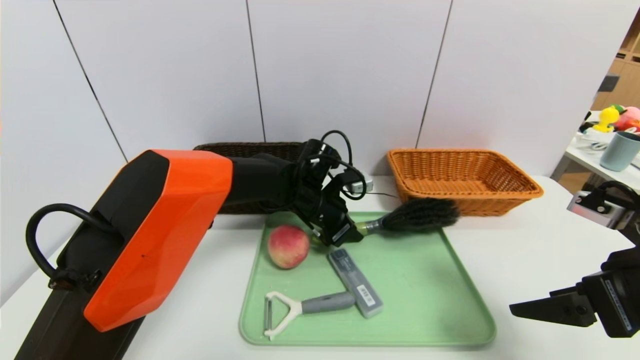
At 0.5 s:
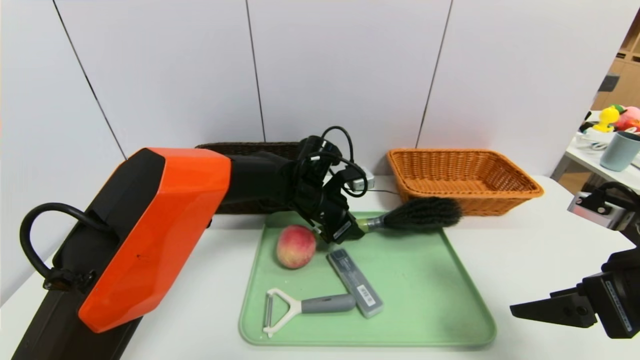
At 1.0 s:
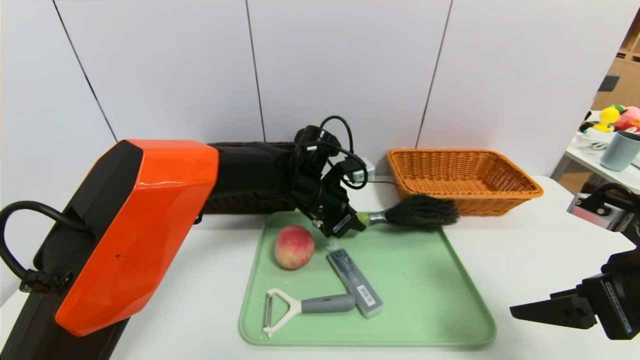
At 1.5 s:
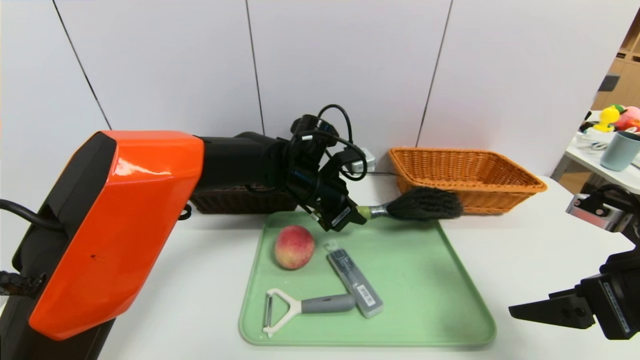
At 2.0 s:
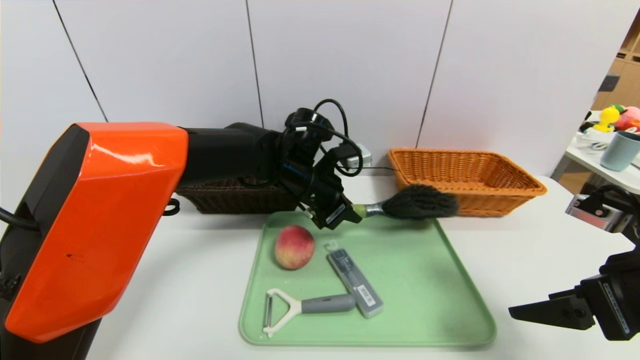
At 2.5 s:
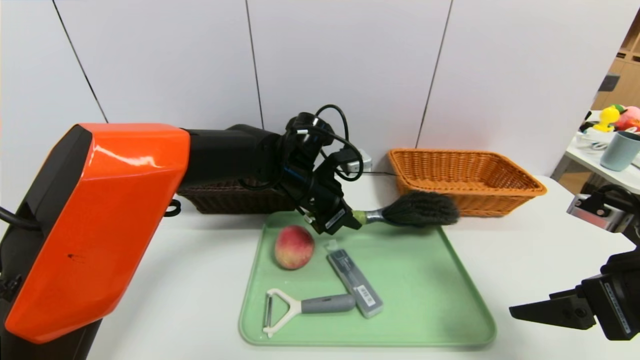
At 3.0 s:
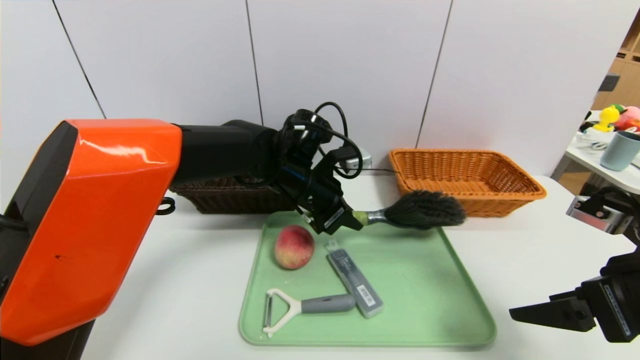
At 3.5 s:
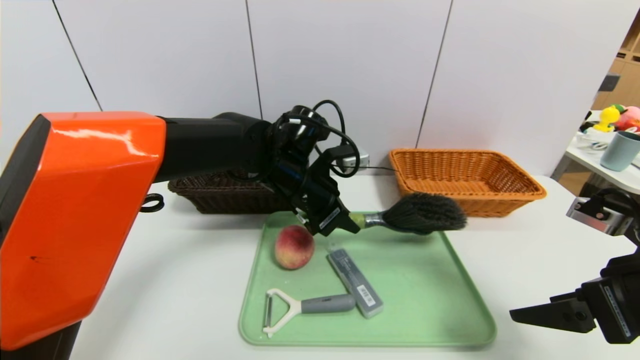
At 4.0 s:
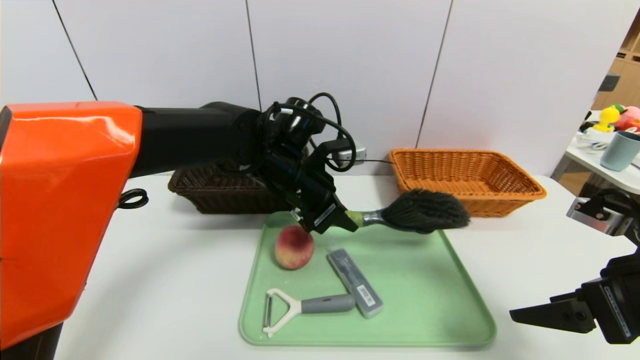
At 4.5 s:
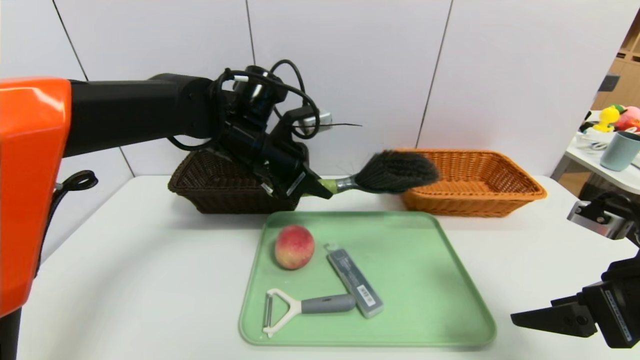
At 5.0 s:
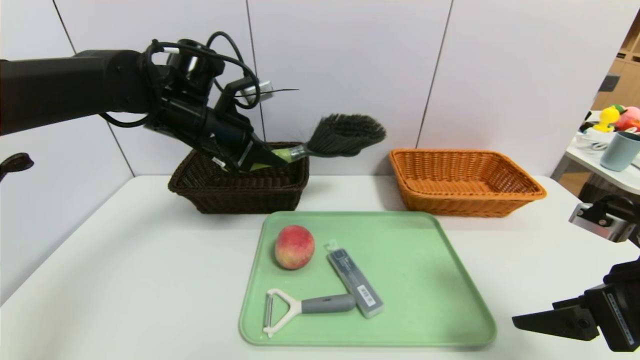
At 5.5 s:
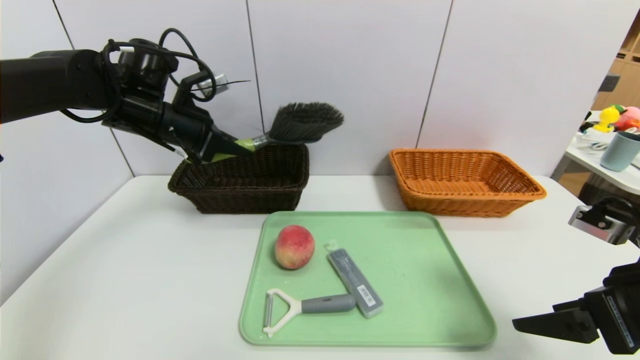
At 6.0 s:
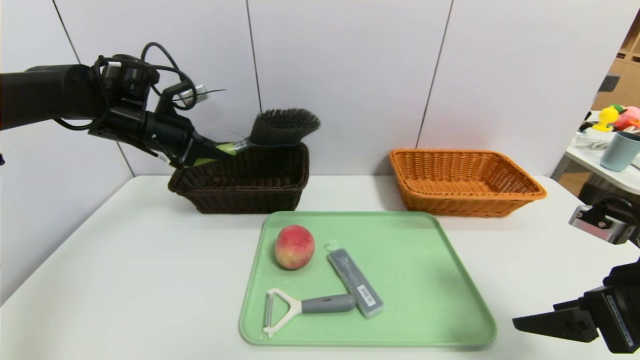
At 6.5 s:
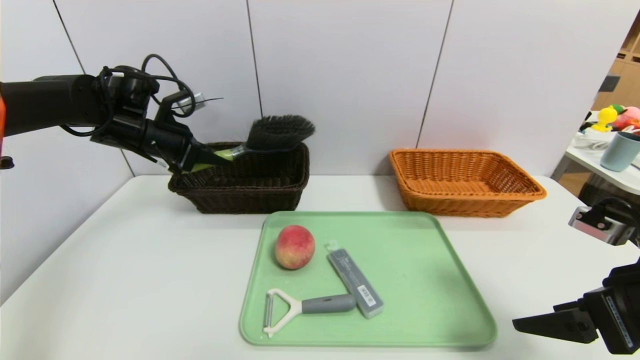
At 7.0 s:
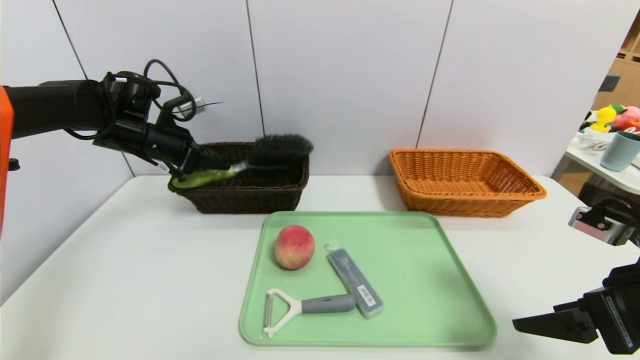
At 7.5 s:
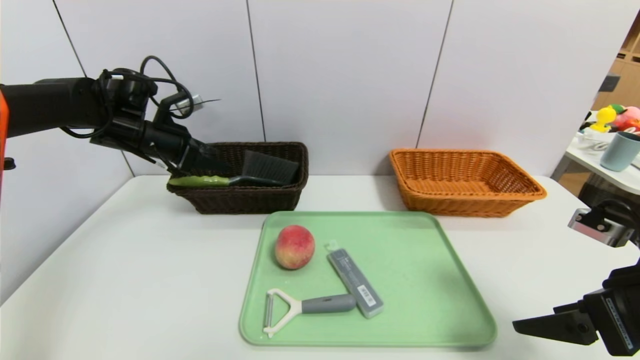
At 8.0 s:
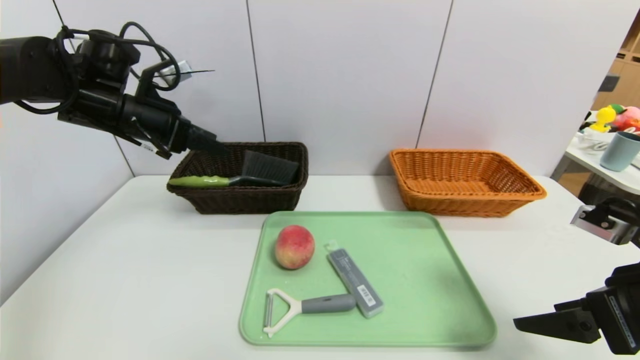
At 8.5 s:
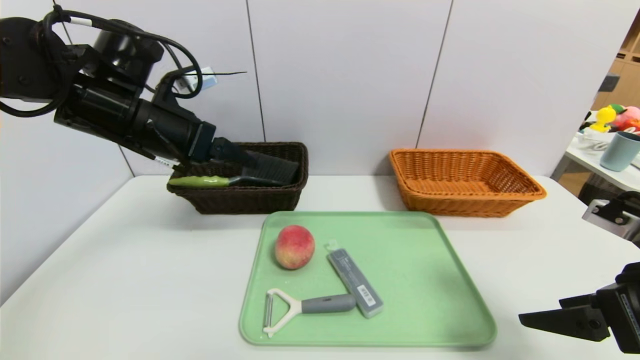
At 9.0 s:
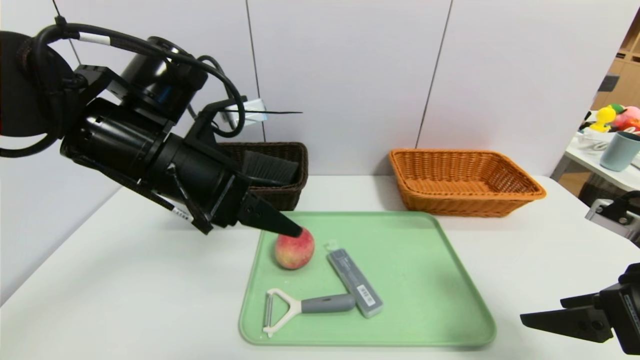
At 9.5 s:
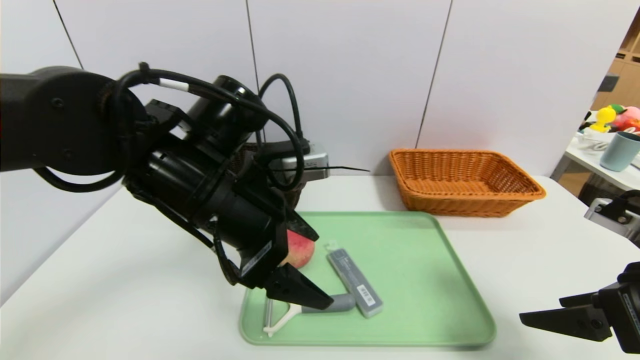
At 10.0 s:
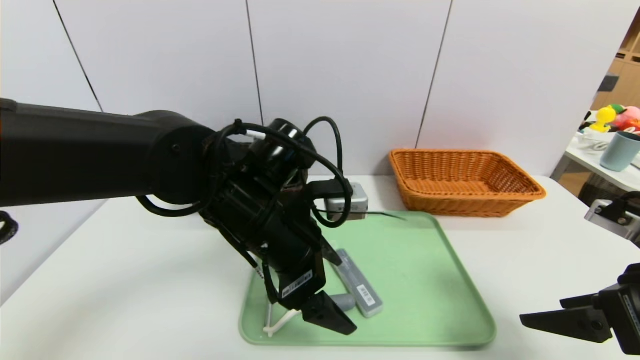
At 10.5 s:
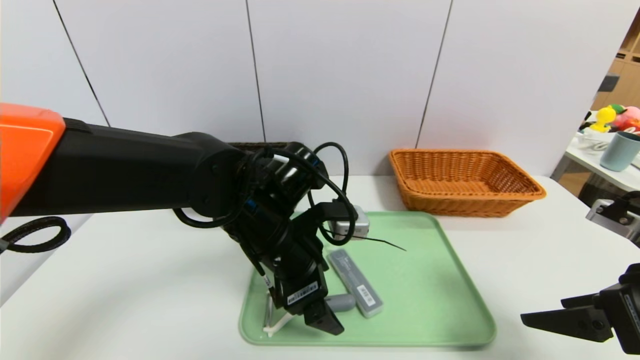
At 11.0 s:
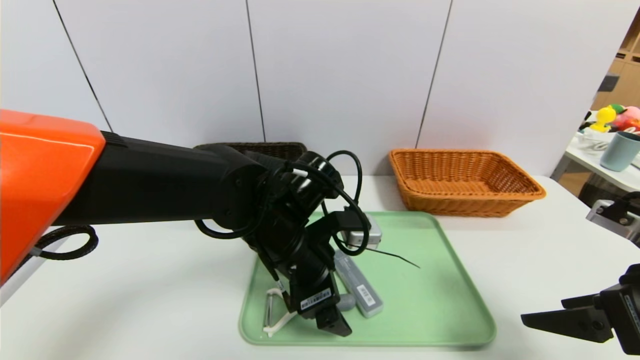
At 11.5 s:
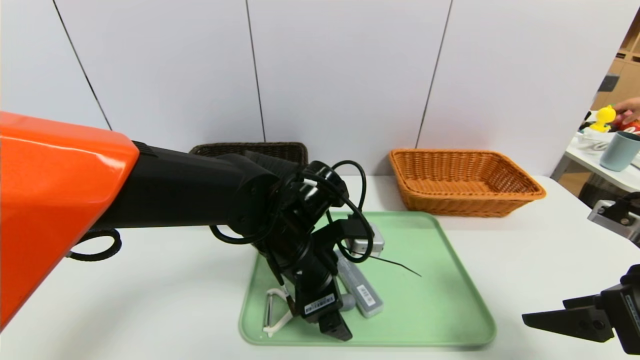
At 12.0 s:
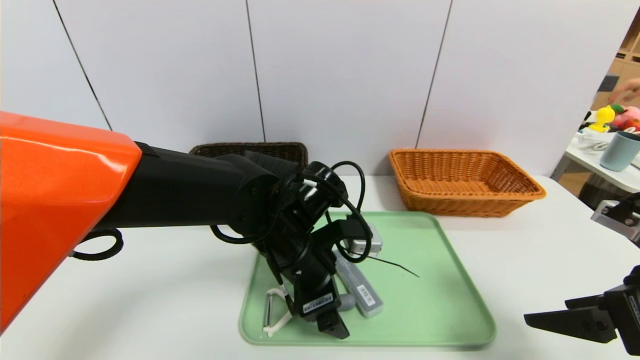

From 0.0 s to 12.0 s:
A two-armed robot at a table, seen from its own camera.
Task of the whole recording: place the food in the right basket with the right gripper, and place the non food items in the left basket with the left gripper.
Step, from 0.0 s to 8.5 s: Grasp the broom and put it in the left basket.
From 0.0 s to 2.0 s: The left gripper shifts some 5 cm upward.
From 2.0 s to 4.0 s: The grippers make only small movements.
From 4.0 s to 6.0 s: The left gripper goes about 25 cm to the left.
From 6.0 s to 8.0 s: The left gripper opens.
From 8.0 s to 10.0 s: The left gripper moves to the right and backward, about 25 cm.
From 10.0 s to 12.0 s: The left gripper travels downward by some 5 cm.

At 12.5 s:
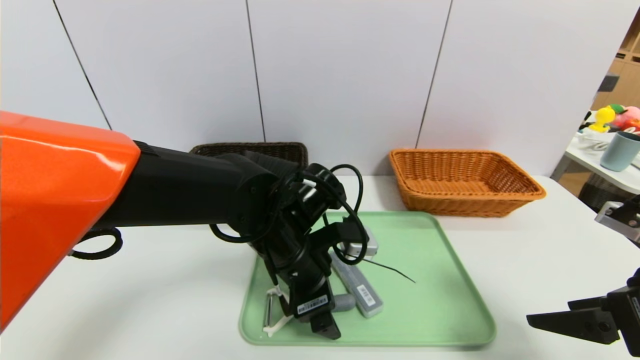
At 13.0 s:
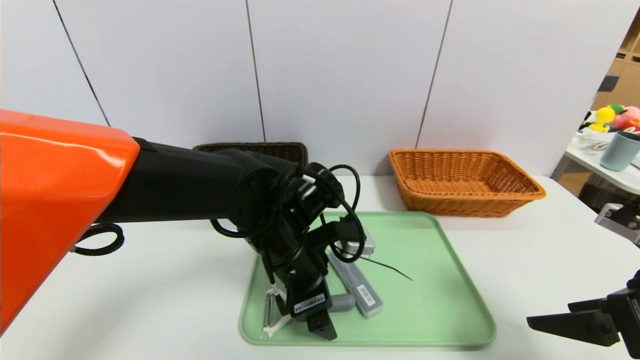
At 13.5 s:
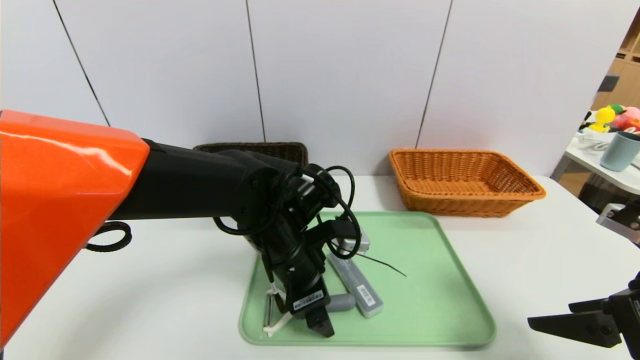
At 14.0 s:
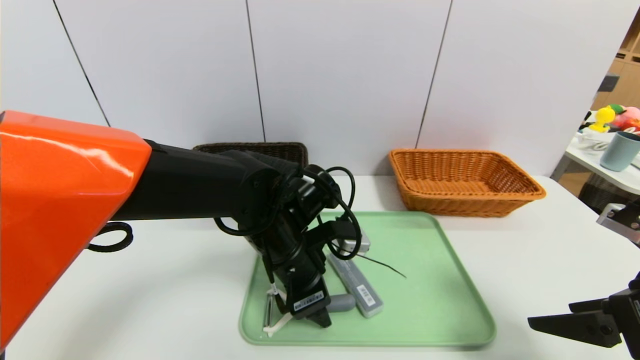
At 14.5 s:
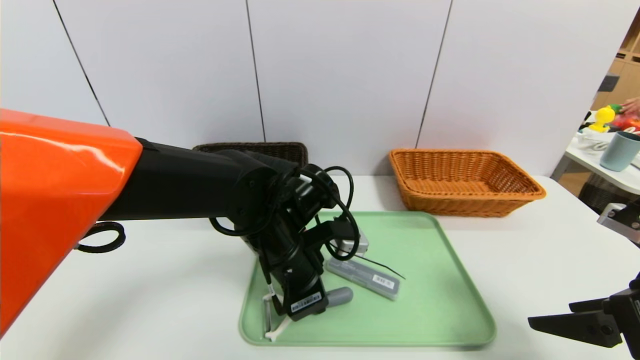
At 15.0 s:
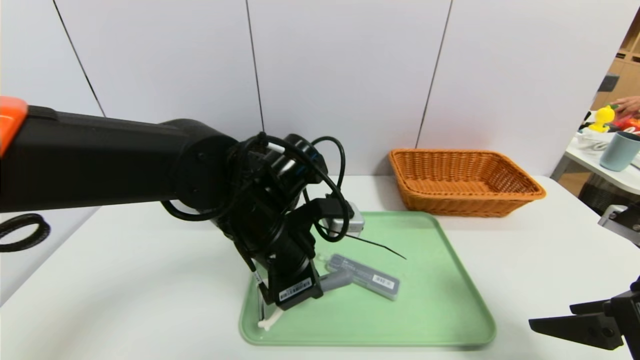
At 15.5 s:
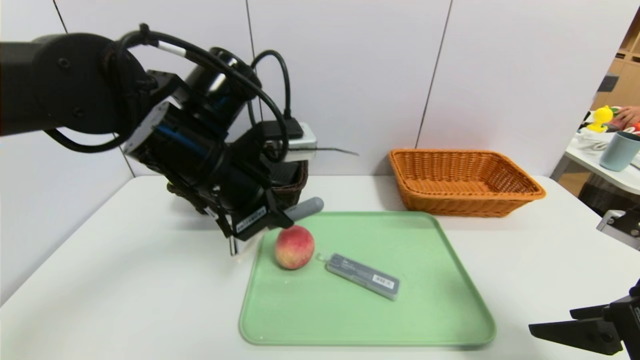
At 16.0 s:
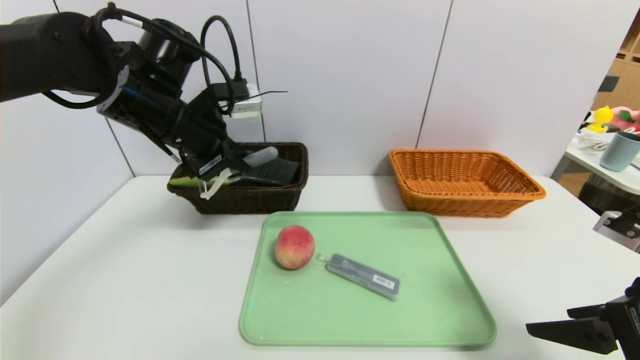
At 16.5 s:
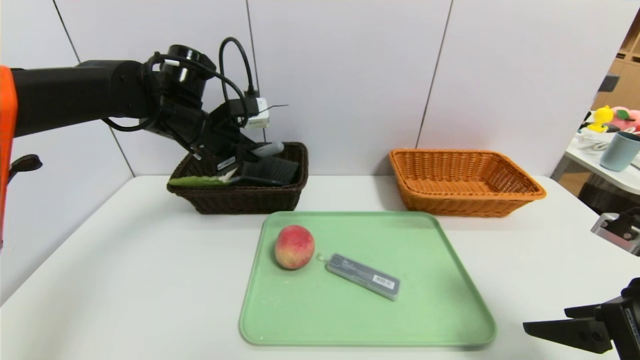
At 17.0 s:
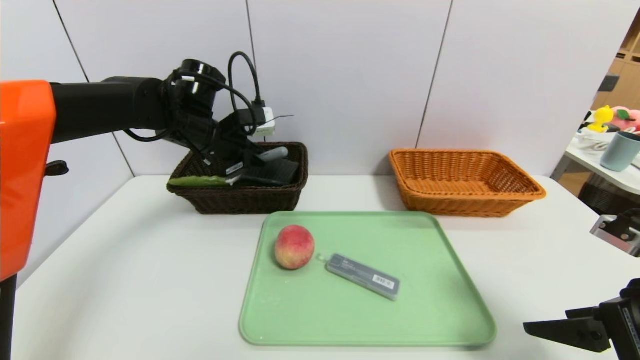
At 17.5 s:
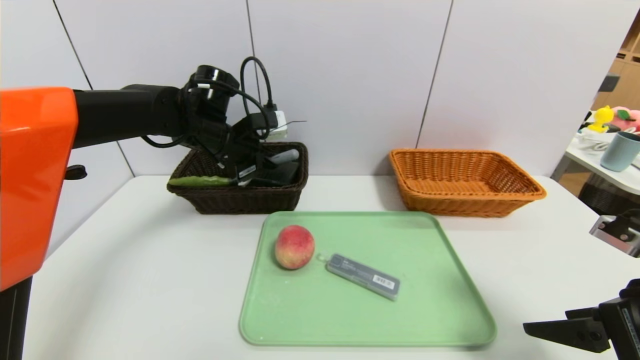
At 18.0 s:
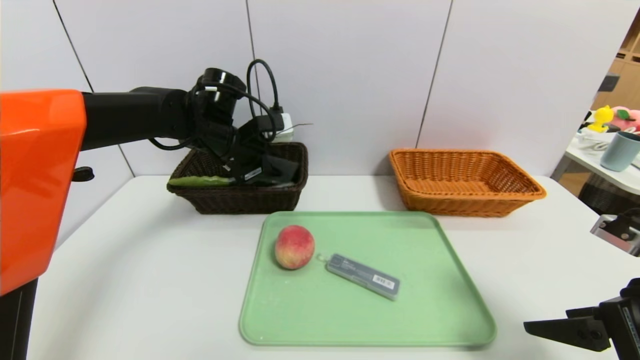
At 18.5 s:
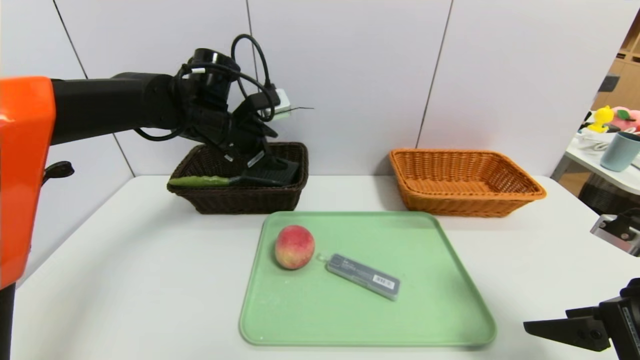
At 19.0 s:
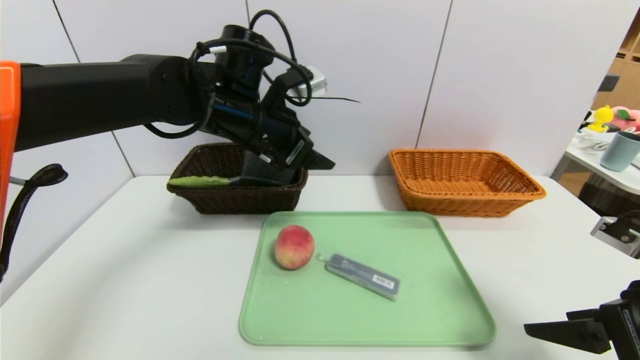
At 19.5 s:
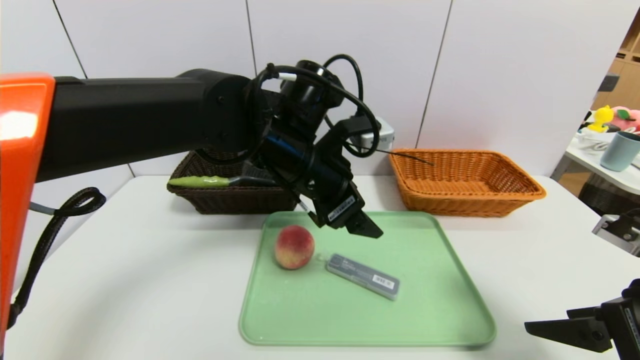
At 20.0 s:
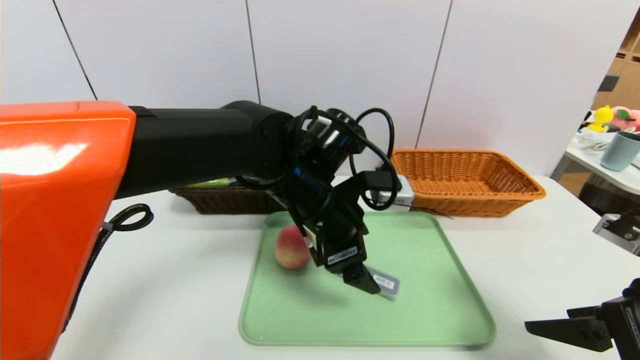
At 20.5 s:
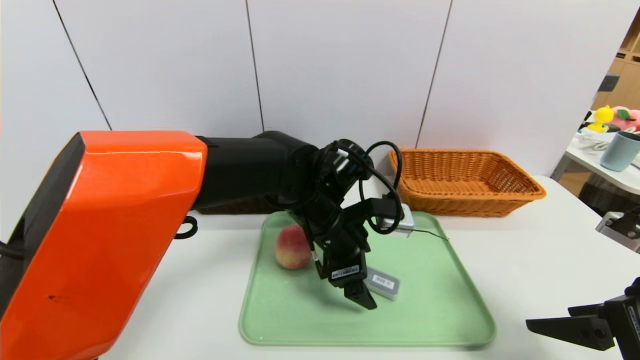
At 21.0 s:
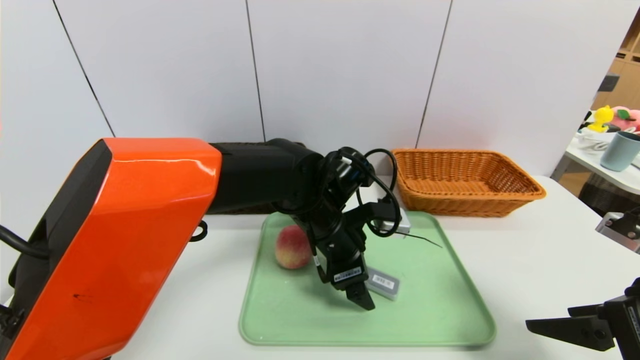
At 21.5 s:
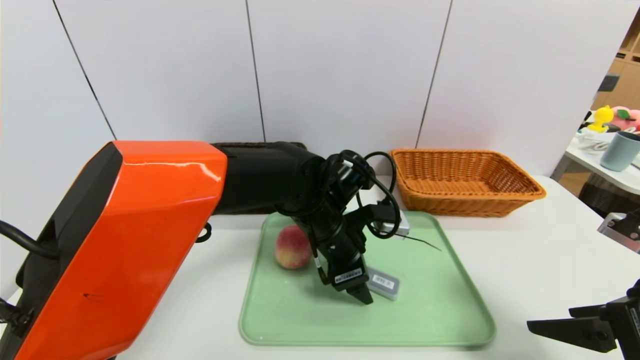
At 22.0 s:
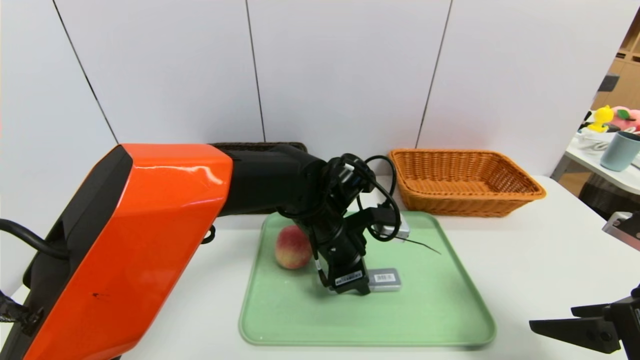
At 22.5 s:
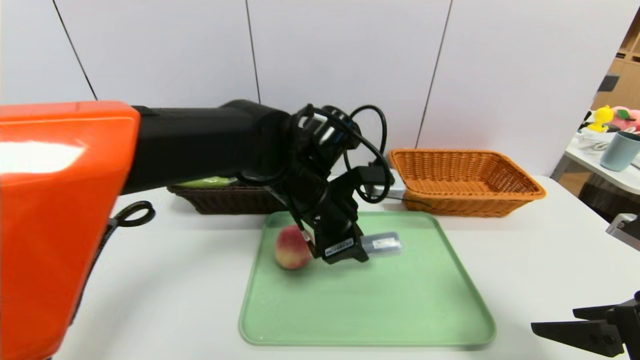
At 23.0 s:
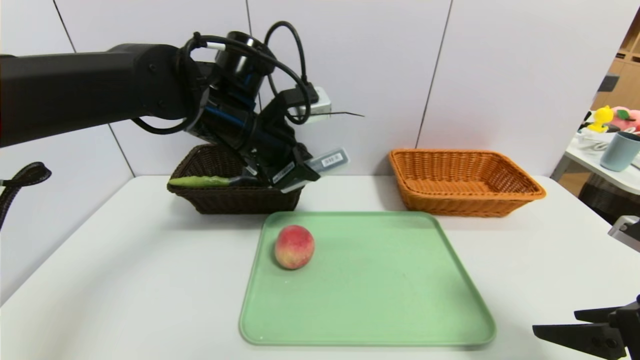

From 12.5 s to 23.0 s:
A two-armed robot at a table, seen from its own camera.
Task of the whole recording: place the food in the right basket with the right gripper, and place the non food items in the left basket with the left gripper.
Step, from 12.5 s to 19.0 s: Grasp the peeler and put it in the left basket.
From 12.5 s to 14.5 s: The left gripper closes its fingers.
From 14.5 s to 16.5 s: The left gripper is displaced to the left, forward and upward by some 20 cm.
From 16.5 s to 19.0 s: The left gripper heads to the right, covering some 10 cm, and opens its fingers.
From 19.0 s to 21.0 s: The left gripper is displaced downward and to the right by some 15 cm.
From 21.0 s to 23.0 s: The left gripper heads upward and to the left, covering about 15 cm, and closes up.
